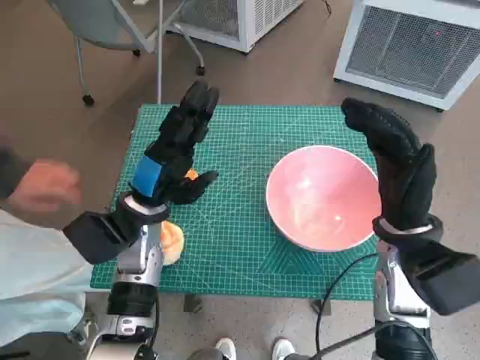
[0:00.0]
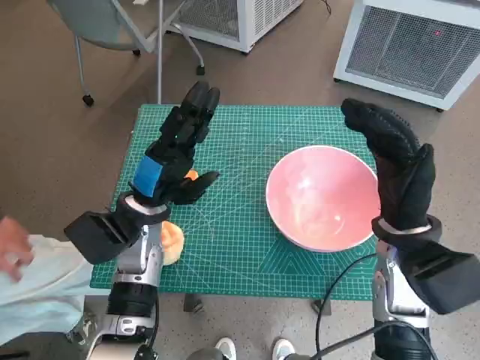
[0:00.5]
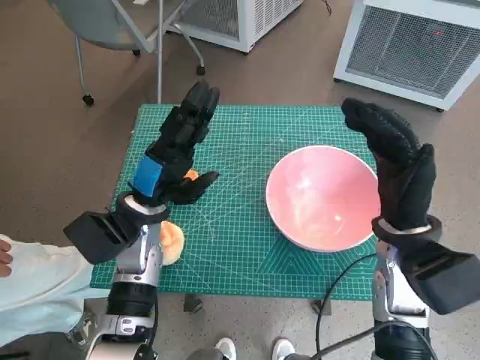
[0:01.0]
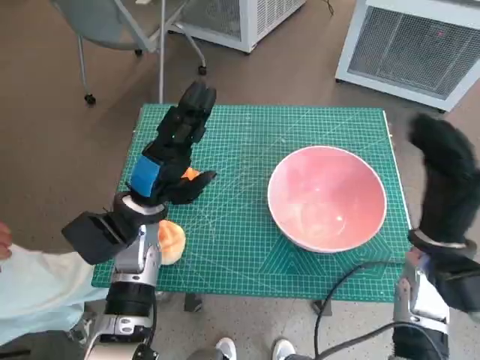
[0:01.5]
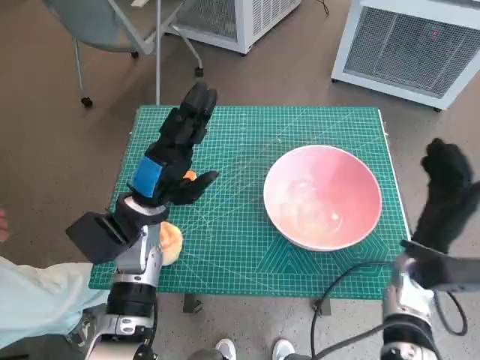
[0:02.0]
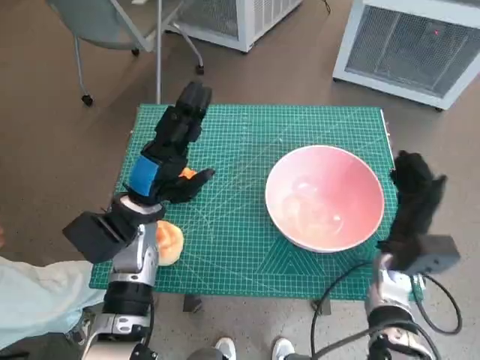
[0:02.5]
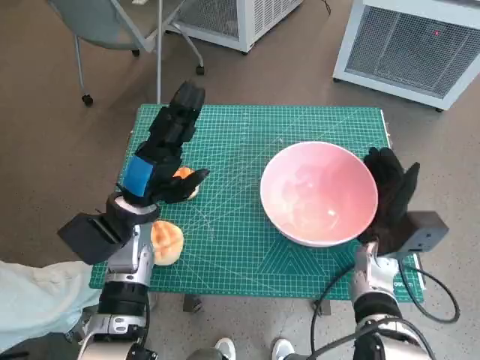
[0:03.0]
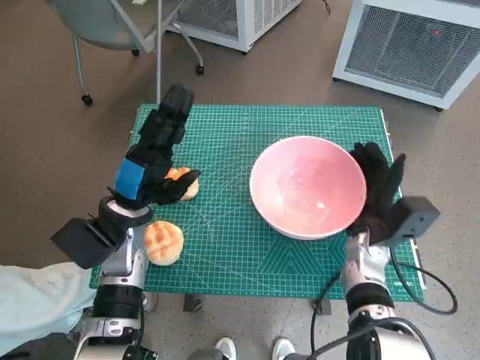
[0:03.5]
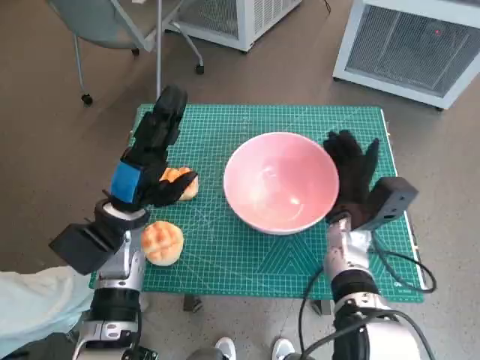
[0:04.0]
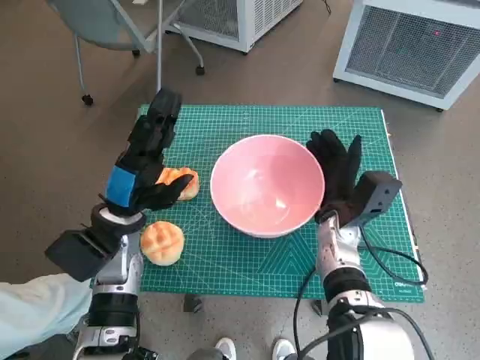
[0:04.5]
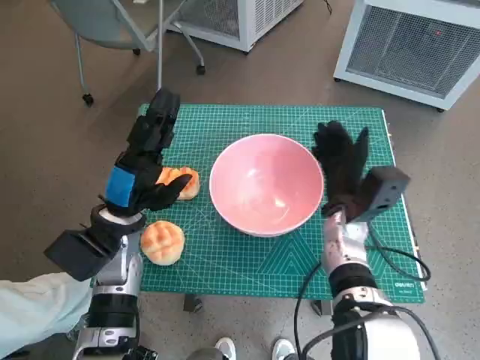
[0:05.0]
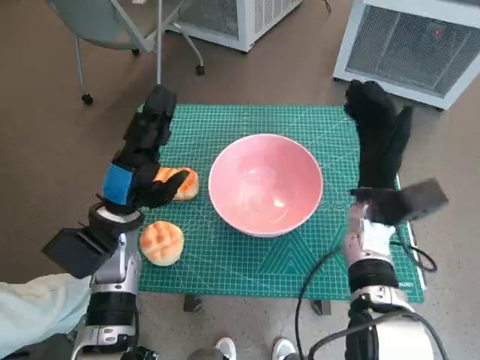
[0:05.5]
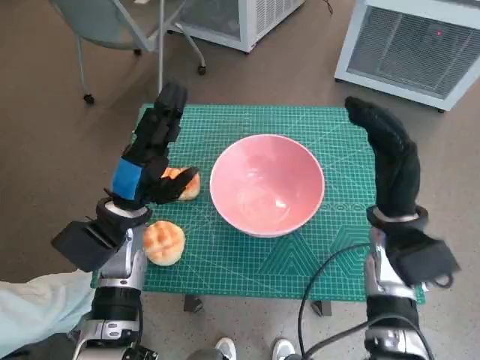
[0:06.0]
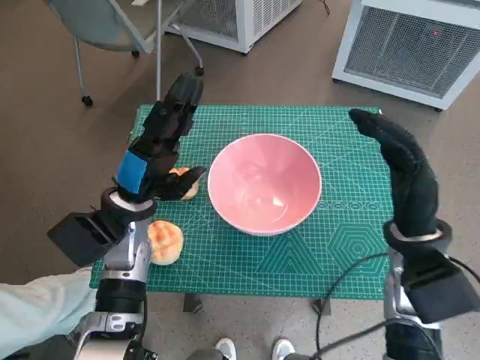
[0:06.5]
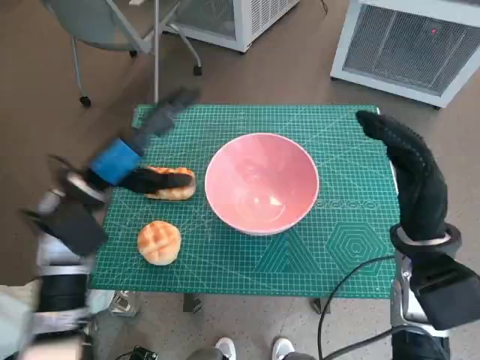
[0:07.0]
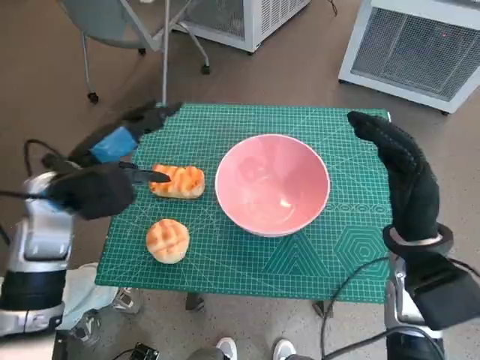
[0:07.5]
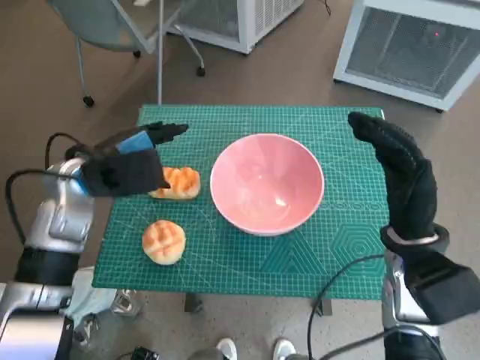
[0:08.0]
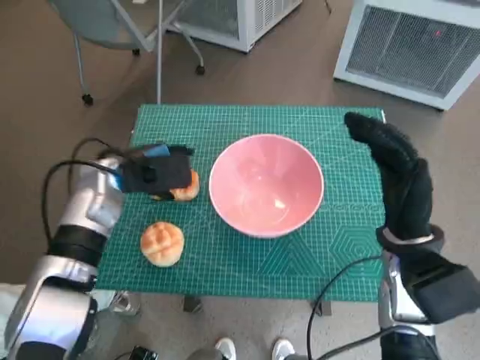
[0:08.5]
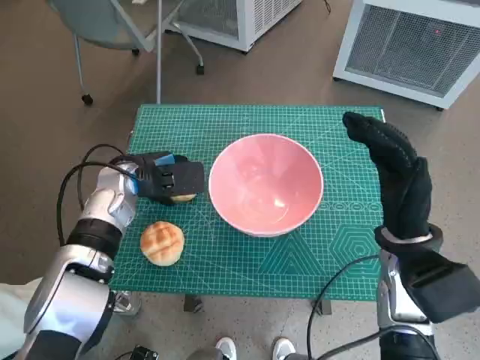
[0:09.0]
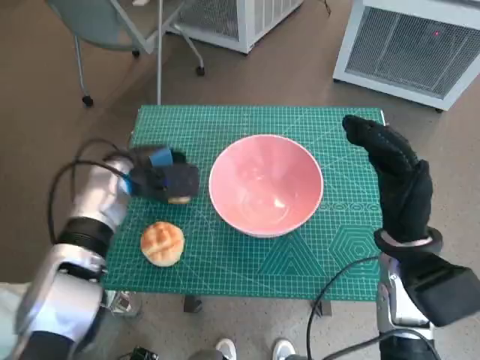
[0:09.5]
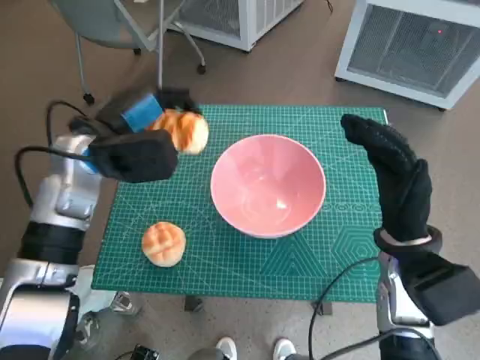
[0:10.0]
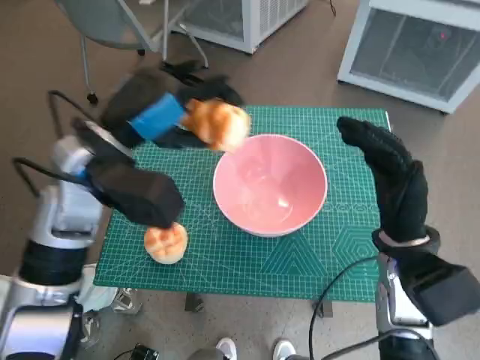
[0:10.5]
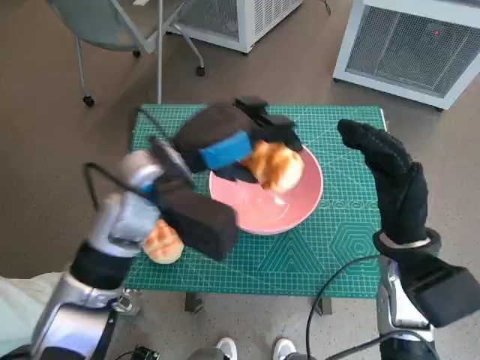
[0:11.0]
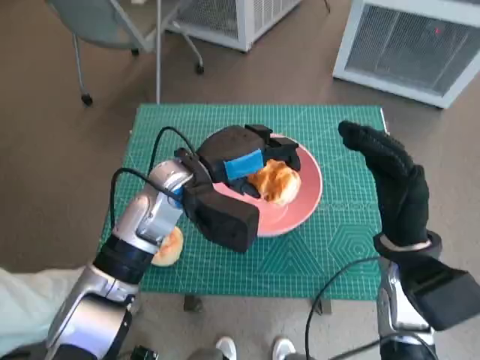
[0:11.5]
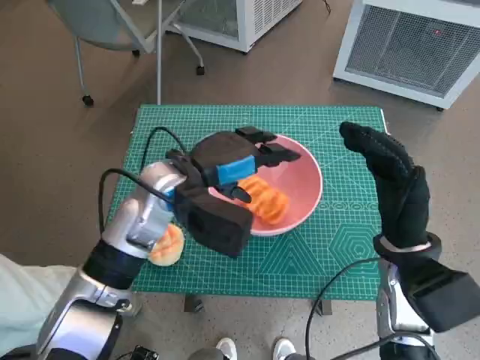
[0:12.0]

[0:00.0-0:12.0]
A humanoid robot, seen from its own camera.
Task of the whole recording: Push the bowl into the center of the table and put the bread into the bowl.
Step, 0:00.0 to 0:05.0: Move the pink bowl to the center of table with right hand.
Step, 0:05.5 to 0:09.0: Grasp the long bread with left hand.
Step, 0:09.5 to 0:11.5: Place the long bread in pink bowl with left hand.
0:02.0 to 0:04.0: The right hand goes about 10 cm to the left and forward.
0:04.0 to 0:06.0: The right hand is displaced upward by approximately 5 cm.
0:06.0 to 0:08.0: The left hand travels upward by roughly 5 cm.
0:08.0 to 0:10.0: The left hand goes downward and returns, about 5 cm each way.
0:10.0 to 0:12.0: The left hand goes roughly 10 cm to the right.

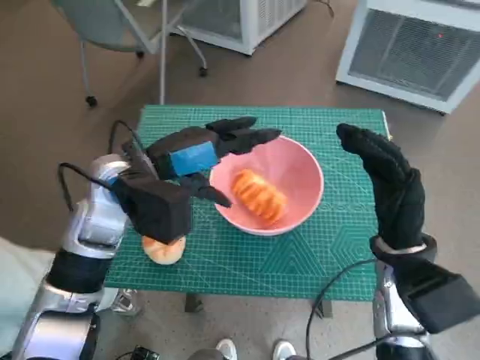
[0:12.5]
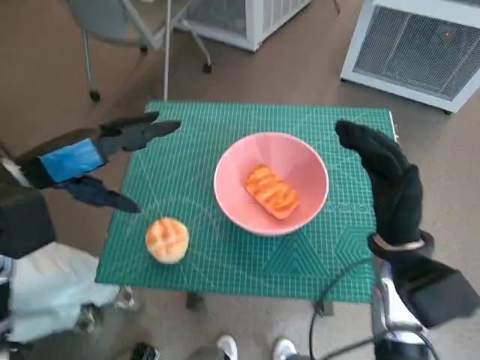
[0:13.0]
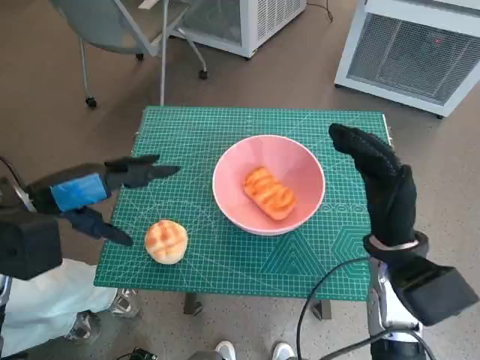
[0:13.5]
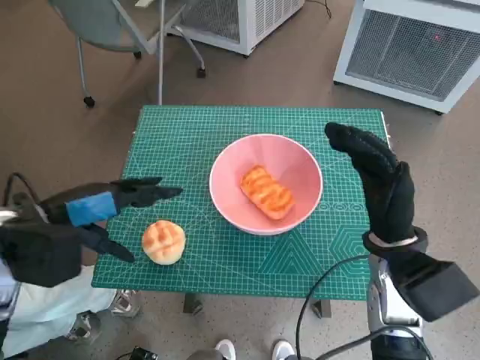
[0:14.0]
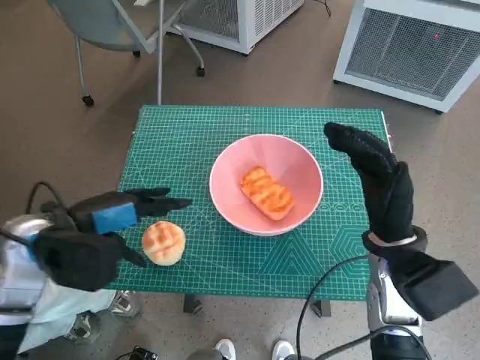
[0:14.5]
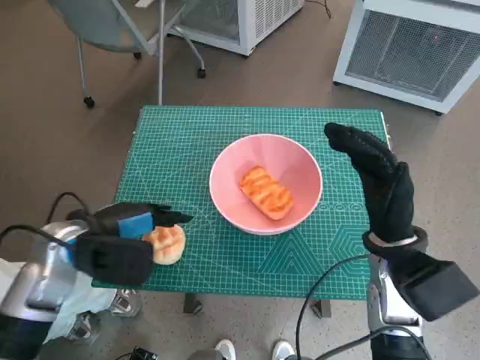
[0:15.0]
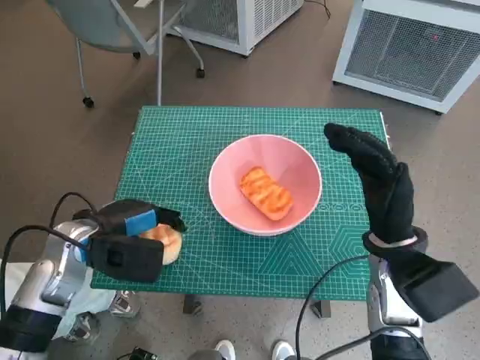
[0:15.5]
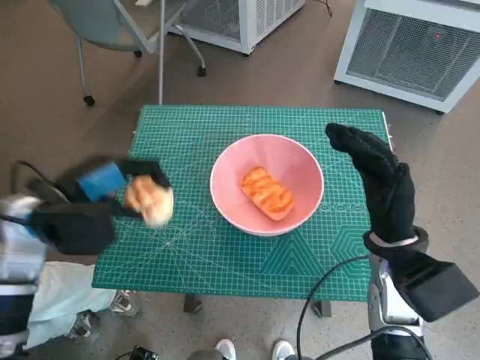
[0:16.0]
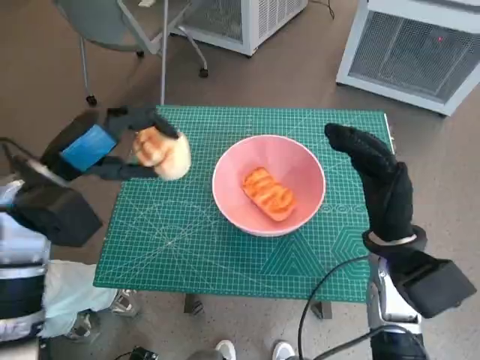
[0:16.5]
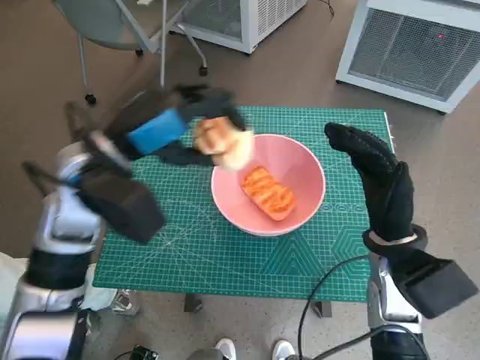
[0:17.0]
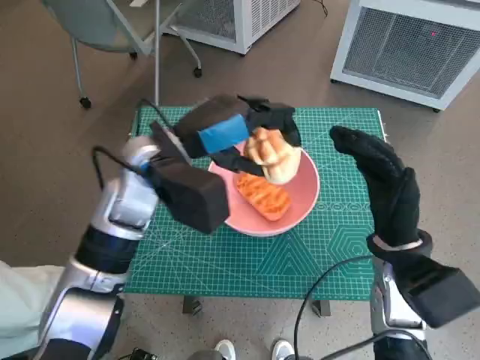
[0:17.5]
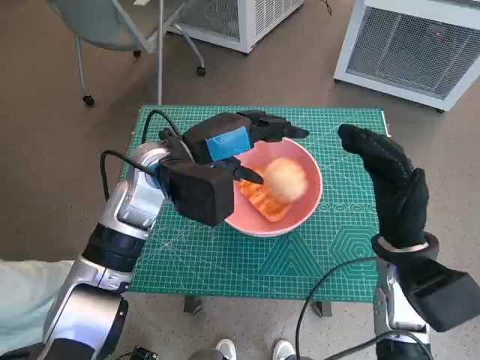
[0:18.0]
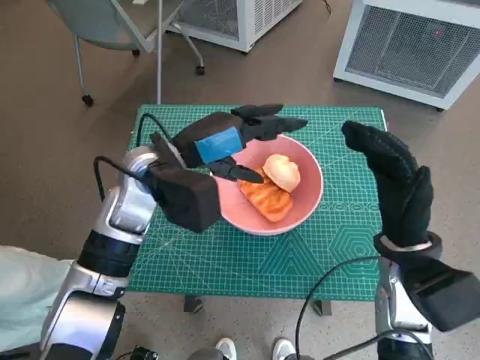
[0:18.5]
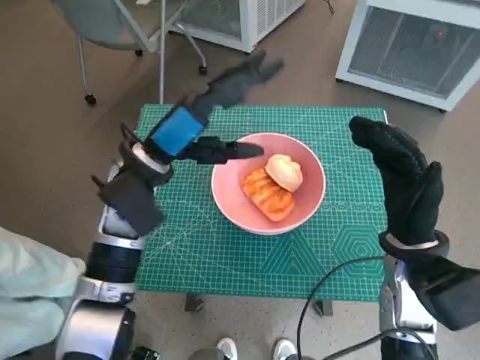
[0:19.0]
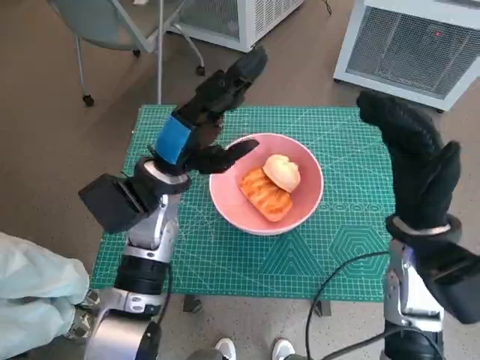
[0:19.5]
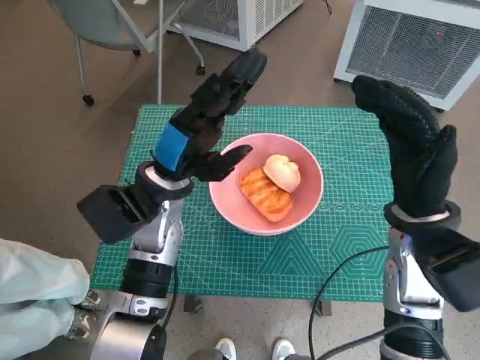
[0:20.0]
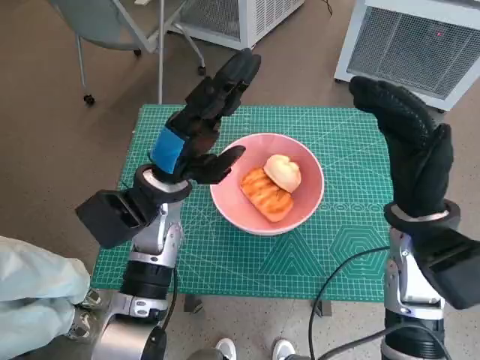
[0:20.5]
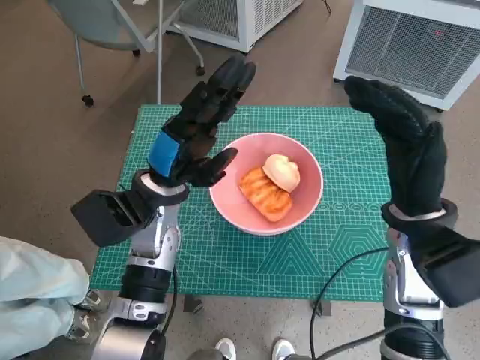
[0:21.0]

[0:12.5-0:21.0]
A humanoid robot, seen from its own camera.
Task of the whole recording: Push the bowl into the center of the table and put the bread into the bowl.
Step, 0:12.5 to 0:15.5: Grasp the round bread with left hand.
Step, 0:16.0 to 0:18.0: Place the round bread in pink bowl with left hand.
0:12.5 to 0:14.5: The left hand heads to the left and backward, covering some 10 cm.
0:16.5 to 0:19.0: The left hand heads to the right, covering approximately 10 cm.
0:19.0 to 0:21.0: The left hand moves approximately 5 cm.

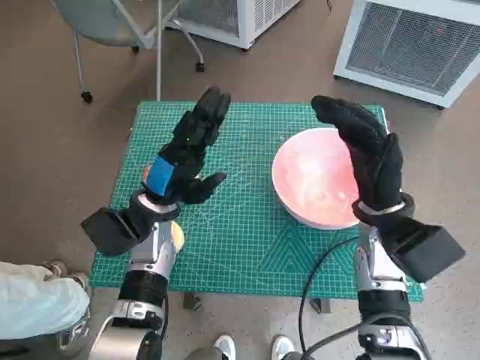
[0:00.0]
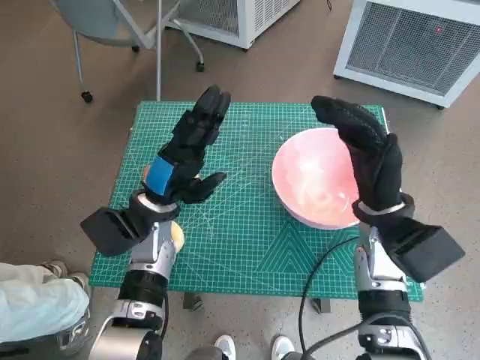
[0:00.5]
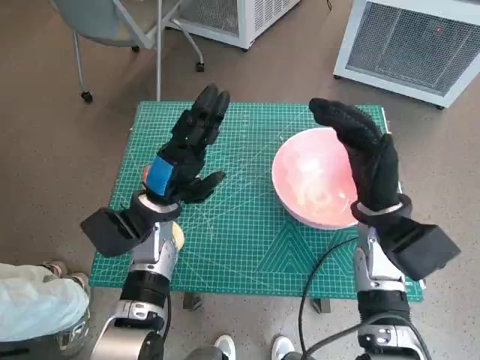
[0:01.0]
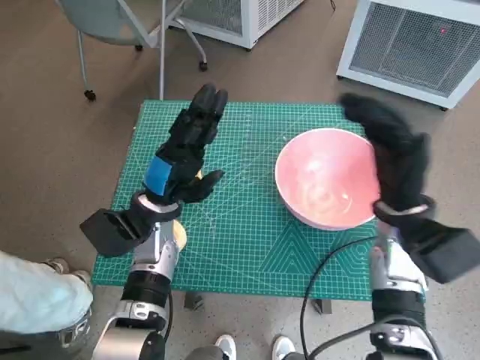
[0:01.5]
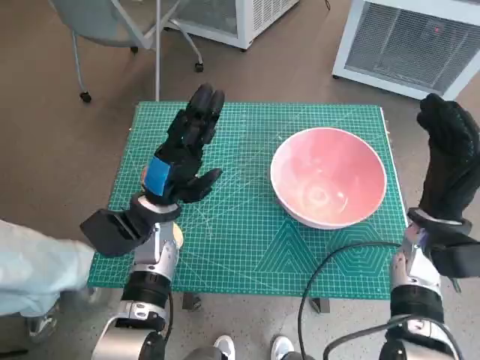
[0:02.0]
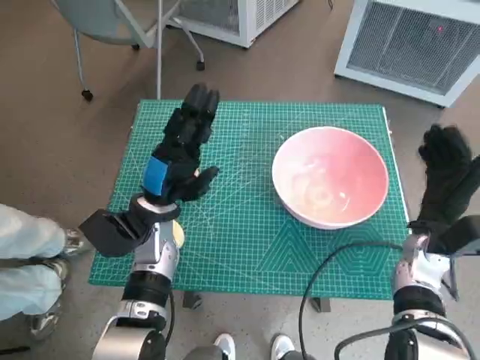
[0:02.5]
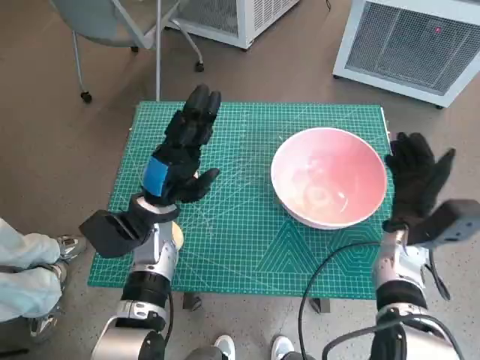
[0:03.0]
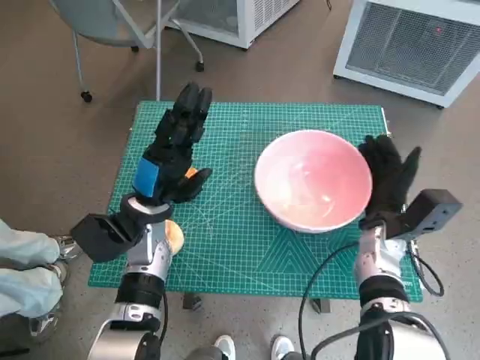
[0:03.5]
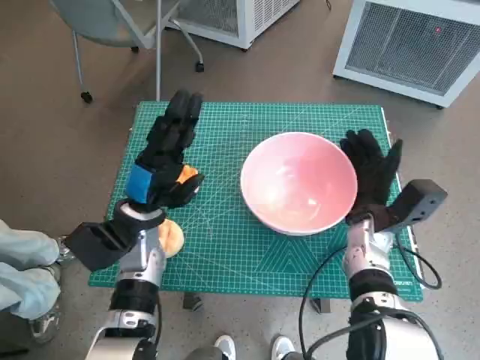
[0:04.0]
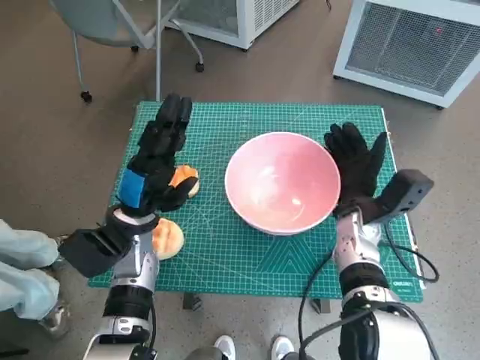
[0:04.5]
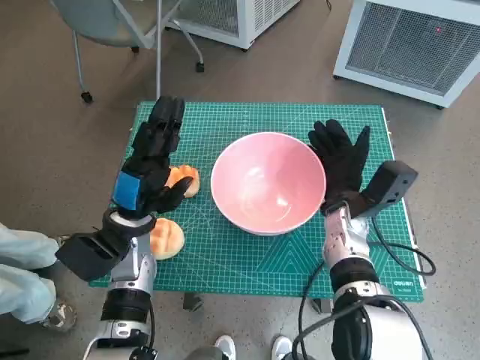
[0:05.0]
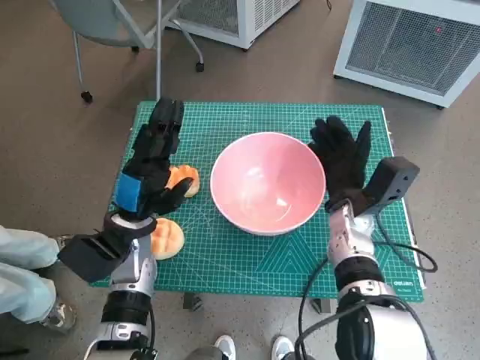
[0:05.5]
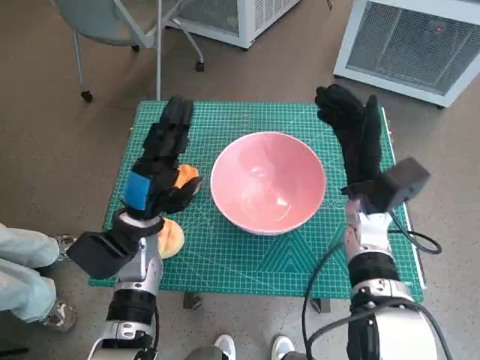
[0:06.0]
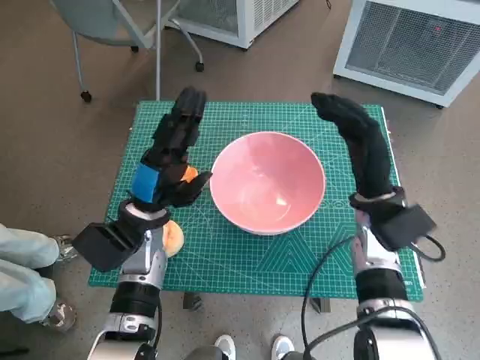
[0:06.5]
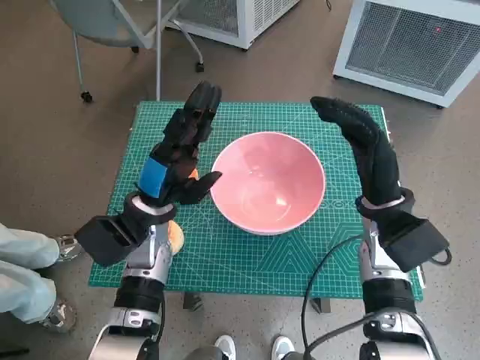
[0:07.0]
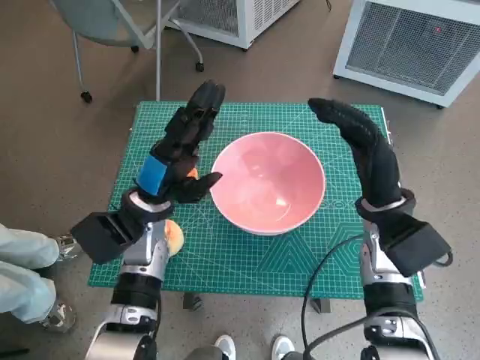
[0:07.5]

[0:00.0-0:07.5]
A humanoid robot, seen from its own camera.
Task of the whole recording: Push the bowl into the center of the table and put the bread into the bowl.
Step, 0:00.0 to 0:05.5: Move the pink bowl to the center of table with right hand.
0:02.0 to 0:04.0: The right hand heads to the left and downward, covering some 10 cm.
0:05.5 to 0:07.5: The right hand travels upward by approximately 5 cm.
